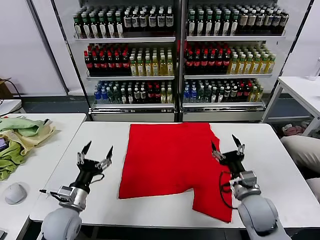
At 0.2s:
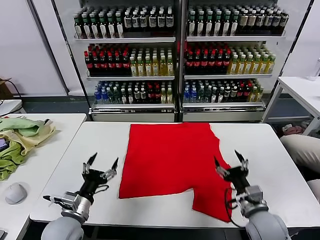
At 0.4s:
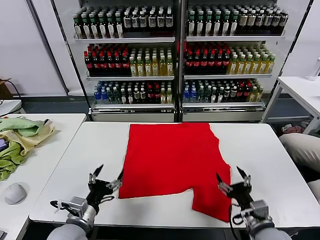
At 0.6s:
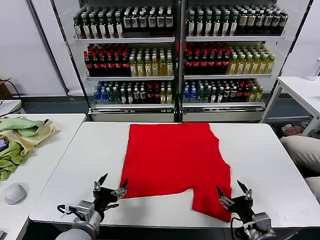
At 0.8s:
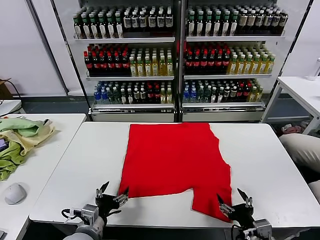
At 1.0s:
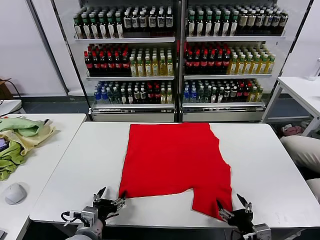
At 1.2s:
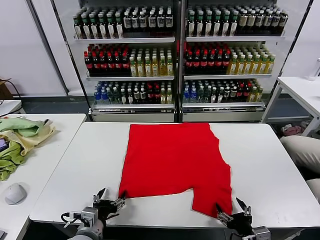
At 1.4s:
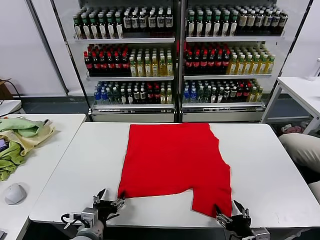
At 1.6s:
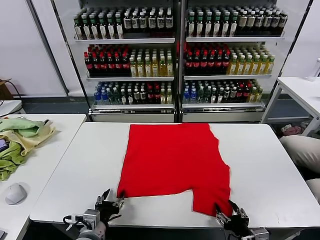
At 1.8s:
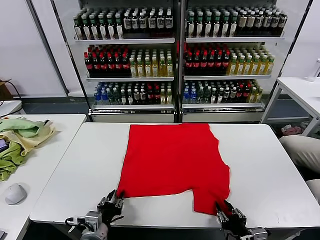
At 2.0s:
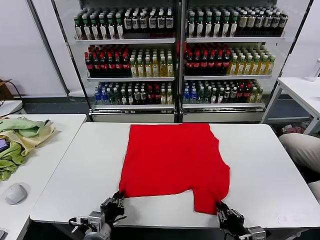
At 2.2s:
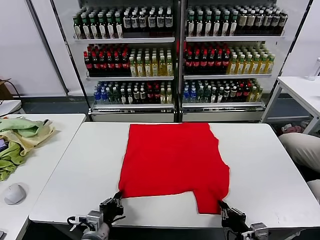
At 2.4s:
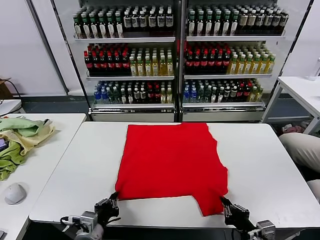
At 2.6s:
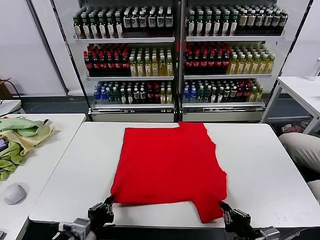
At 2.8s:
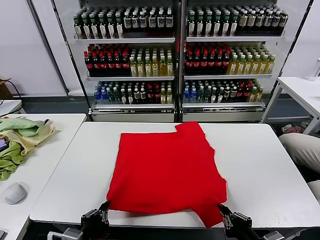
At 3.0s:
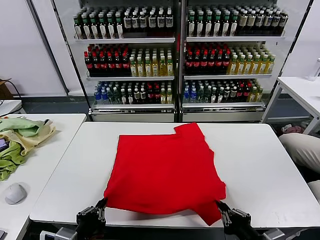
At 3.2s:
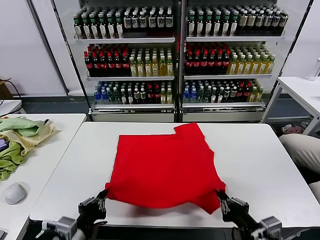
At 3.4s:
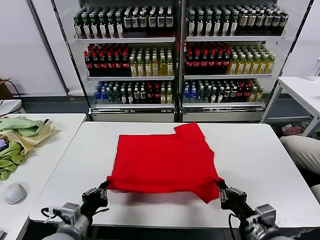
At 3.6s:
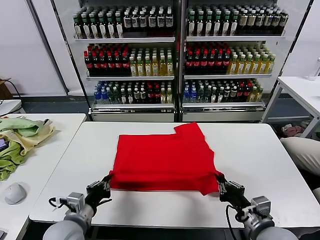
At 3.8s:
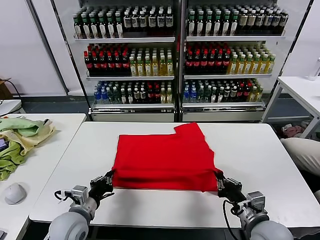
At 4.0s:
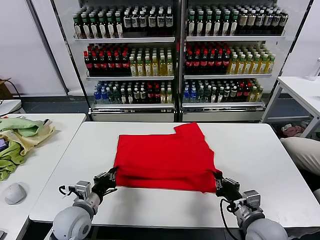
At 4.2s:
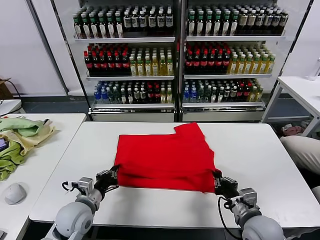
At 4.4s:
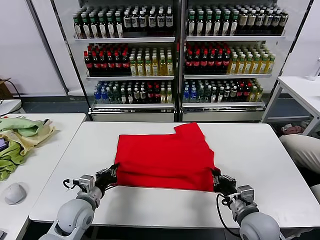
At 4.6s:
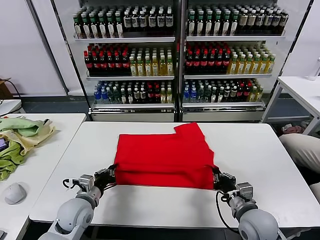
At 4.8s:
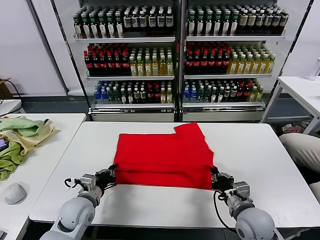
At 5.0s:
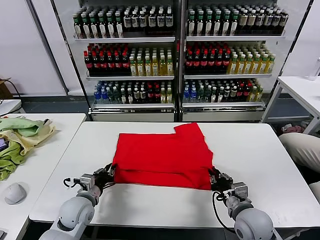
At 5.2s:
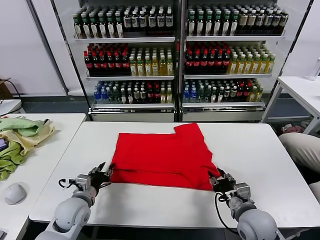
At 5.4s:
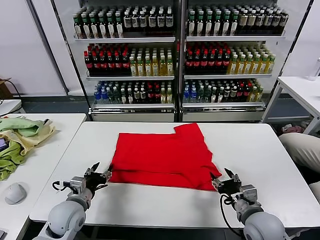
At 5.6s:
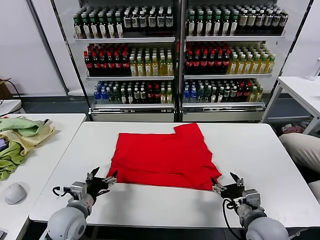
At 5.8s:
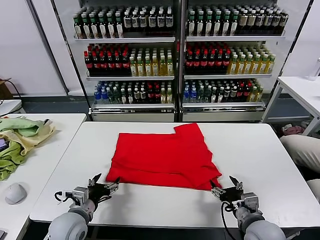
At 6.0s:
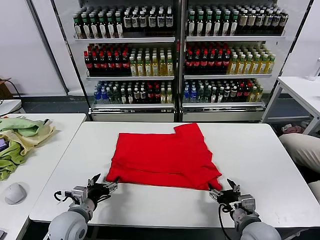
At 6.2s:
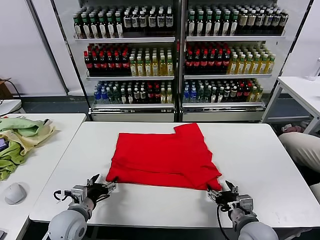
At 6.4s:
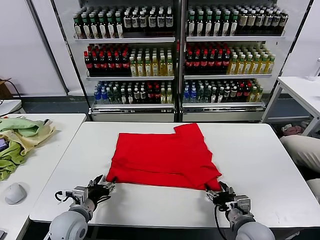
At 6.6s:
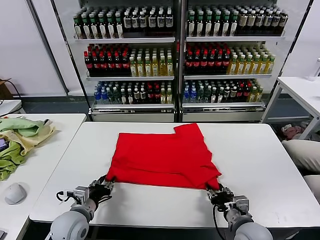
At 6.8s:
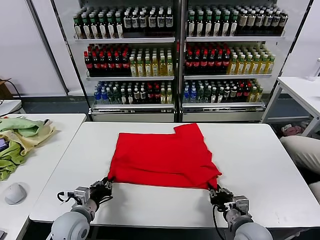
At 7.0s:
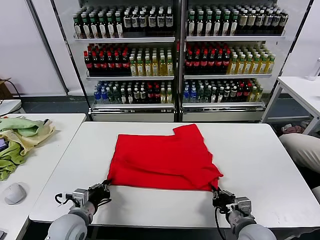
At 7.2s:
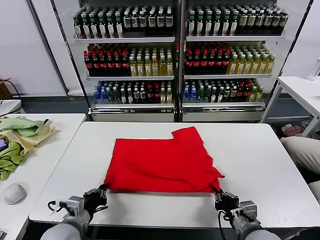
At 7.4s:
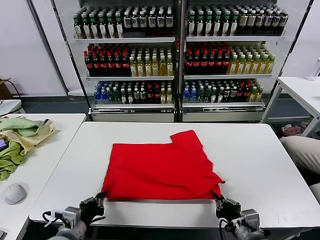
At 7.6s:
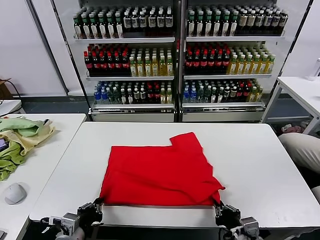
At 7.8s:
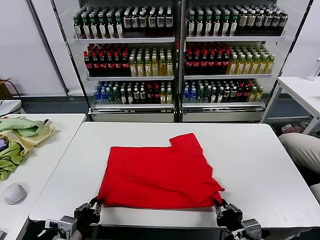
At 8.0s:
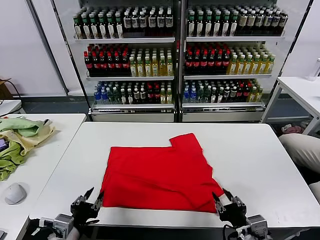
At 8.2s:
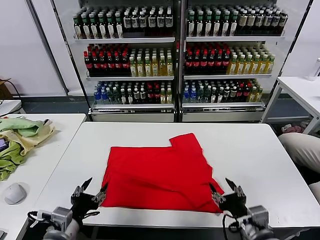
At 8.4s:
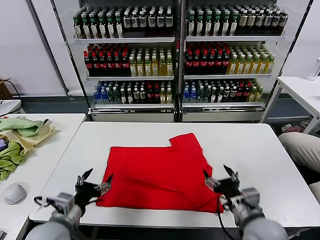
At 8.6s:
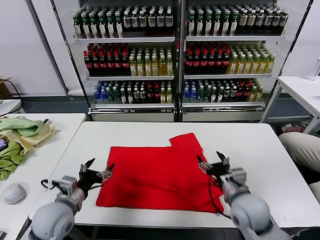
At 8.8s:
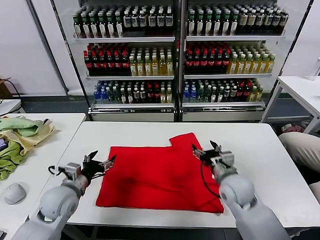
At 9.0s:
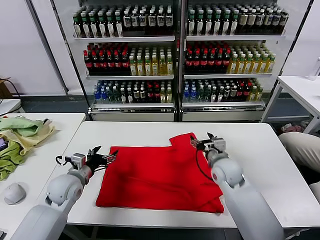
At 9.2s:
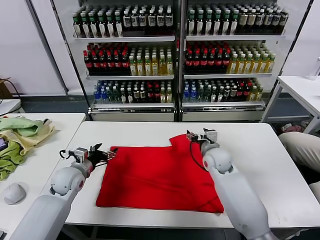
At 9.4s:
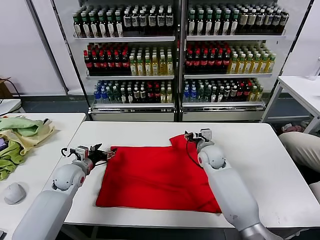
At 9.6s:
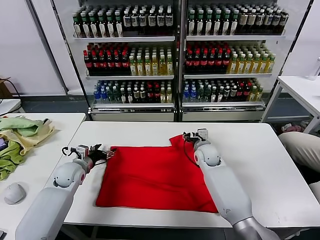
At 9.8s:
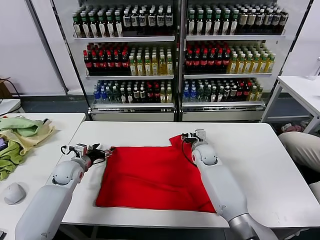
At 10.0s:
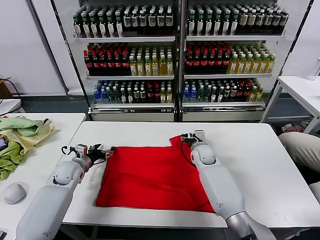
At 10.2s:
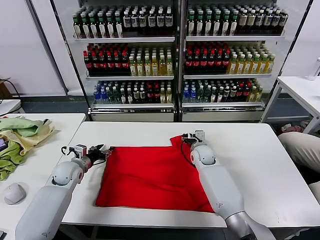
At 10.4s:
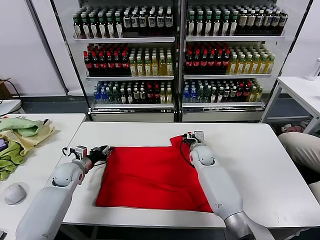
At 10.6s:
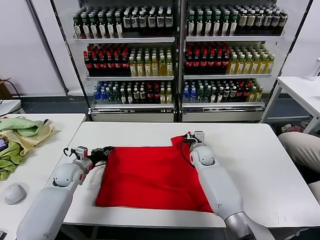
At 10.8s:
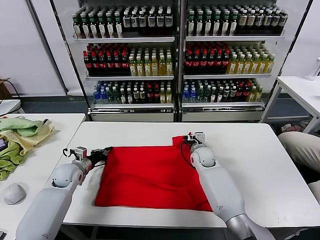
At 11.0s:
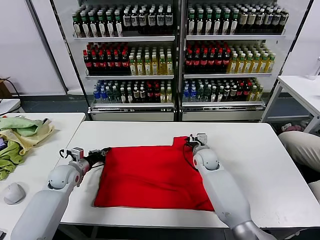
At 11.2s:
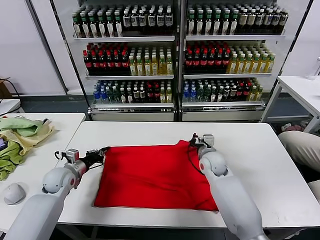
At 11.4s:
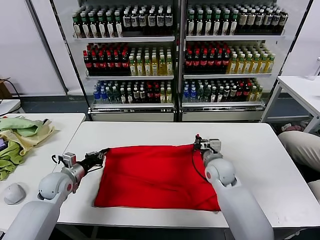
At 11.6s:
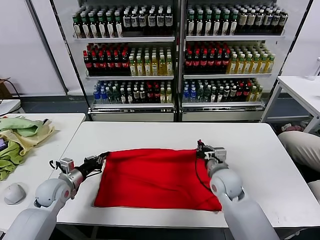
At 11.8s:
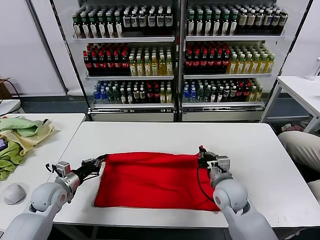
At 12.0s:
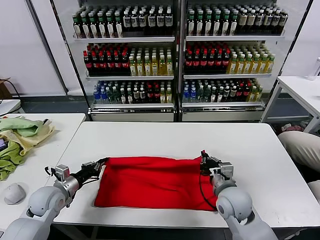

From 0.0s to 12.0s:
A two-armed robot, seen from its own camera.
Task of the whole recording: fold and organize the clothes.
Step, from 0.0s to 2.2s: use both grippers simultaneously to clamp the lower edge of the clothing fabric.
Step, from 2.4s to 5.2s: use both grippers to drag the lower edge of the fabric forward and fold it over the upper edge.
Step, from 5.4s to 7.8s: Drag the clothes downward with both gripper.
Step, from 8.2s to 10.8s: use both grippers simultaneously to clamp the upper edge of the clothing fabric.
From 1.6s to 3.0s: The left gripper moves upward and backward, some 10 cm, and closes its fingers. Meanwhile the right gripper shifts roughly 10 cm upward, and closes up.
From 3.0s to 4.4s: The two grippers go some 15 cm forward and downward.
From 4.4s to 6.0s: The left gripper opens up; the right gripper opens up.
From 6.0s to 7.6s: The grippers both shift backward by some 10 cm. The left gripper closes up; the right gripper closes its fingers.
From 7.6s to 9.0s: Both grippers move forward, some 25 cm. The left gripper opens. Meanwhile the right gripper opens its fingers.
From 9.0s to 10.4s: The left gripper is displaced forward by about 10 cm, and closes; the right gripper is displaced forward and downward by roughly 10 cm, and closes up.
From 10.4s to 12.0s: The right gripper shifts approximately 20 cm backward, and closes its fingers. Meanwhile the left gripper goes about 10 cm backward, and closes.

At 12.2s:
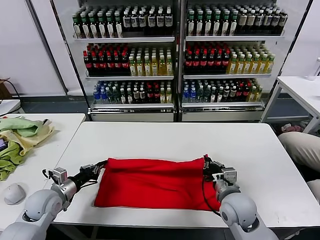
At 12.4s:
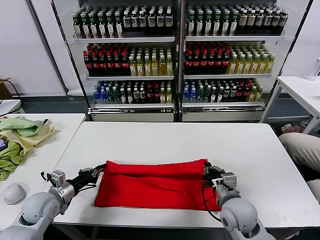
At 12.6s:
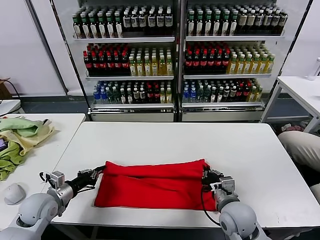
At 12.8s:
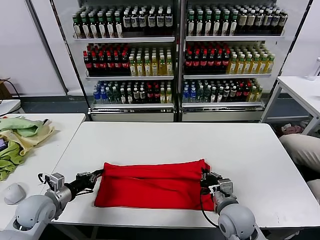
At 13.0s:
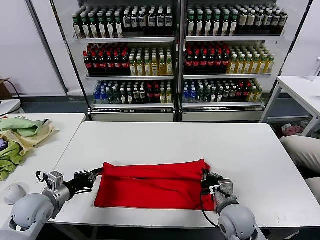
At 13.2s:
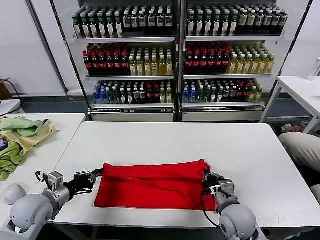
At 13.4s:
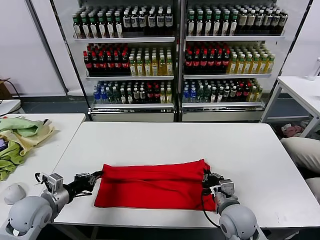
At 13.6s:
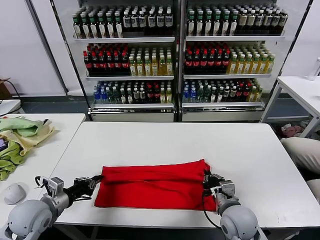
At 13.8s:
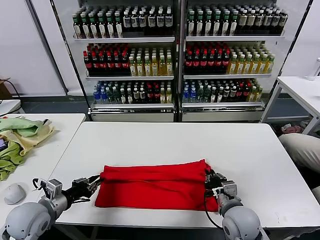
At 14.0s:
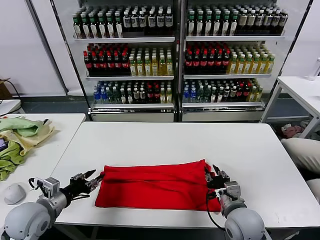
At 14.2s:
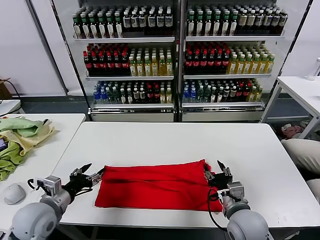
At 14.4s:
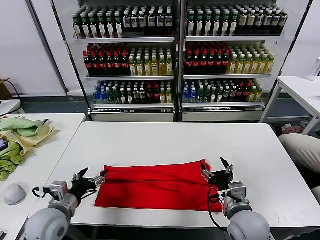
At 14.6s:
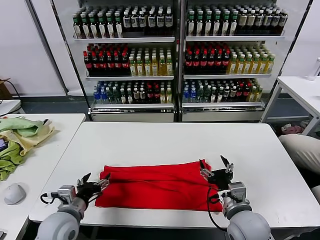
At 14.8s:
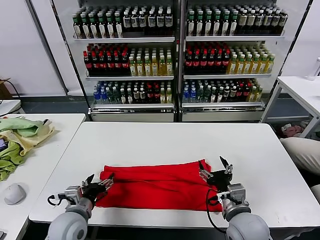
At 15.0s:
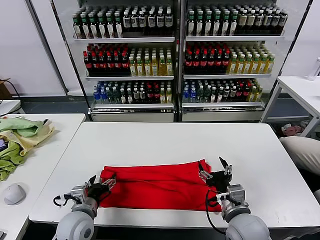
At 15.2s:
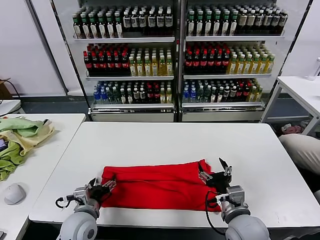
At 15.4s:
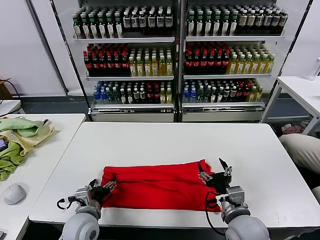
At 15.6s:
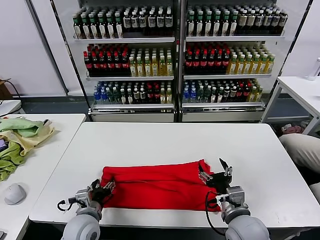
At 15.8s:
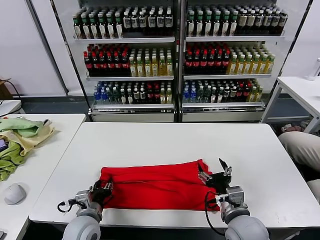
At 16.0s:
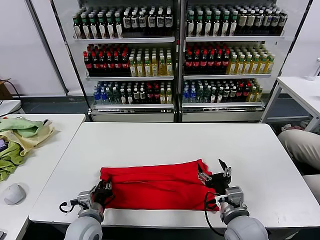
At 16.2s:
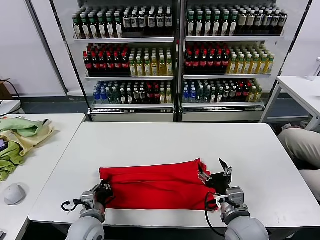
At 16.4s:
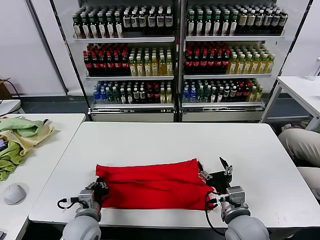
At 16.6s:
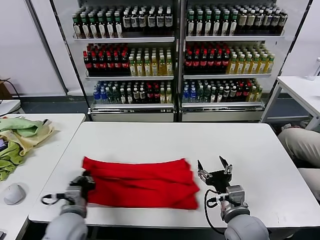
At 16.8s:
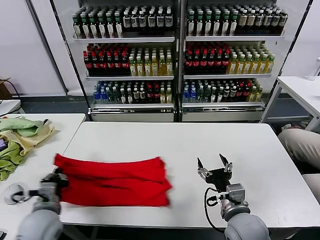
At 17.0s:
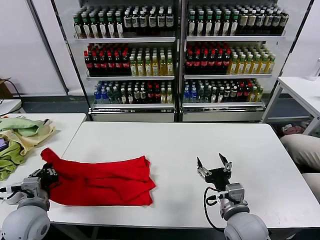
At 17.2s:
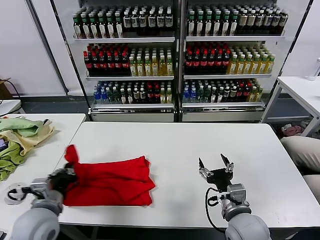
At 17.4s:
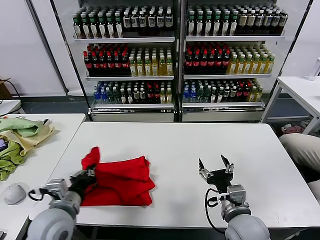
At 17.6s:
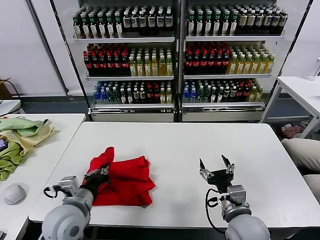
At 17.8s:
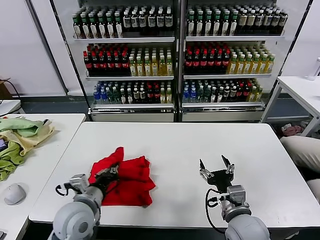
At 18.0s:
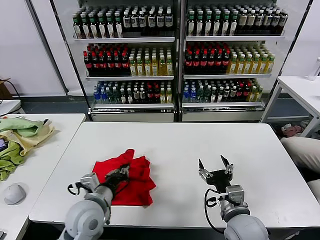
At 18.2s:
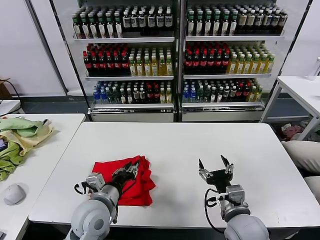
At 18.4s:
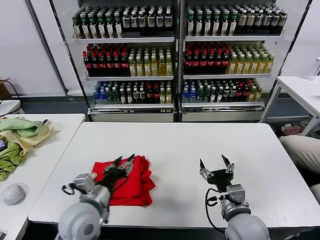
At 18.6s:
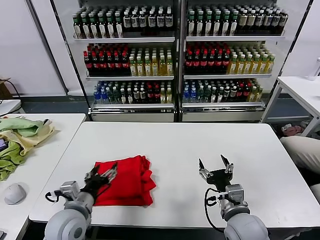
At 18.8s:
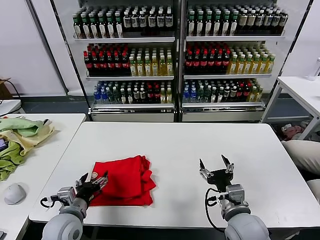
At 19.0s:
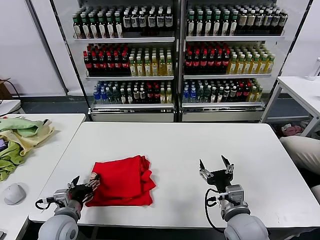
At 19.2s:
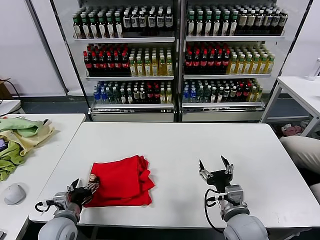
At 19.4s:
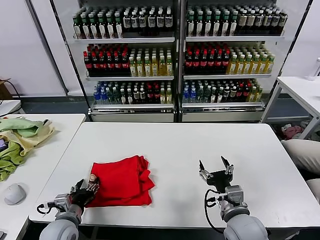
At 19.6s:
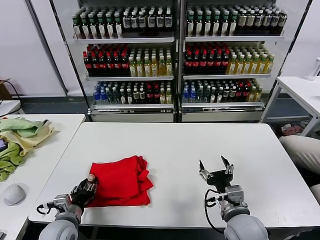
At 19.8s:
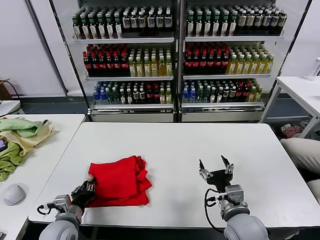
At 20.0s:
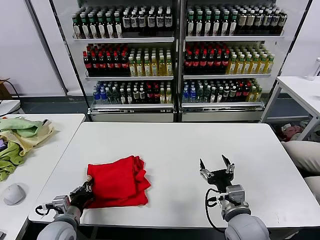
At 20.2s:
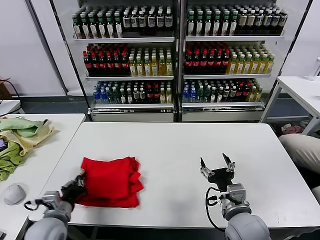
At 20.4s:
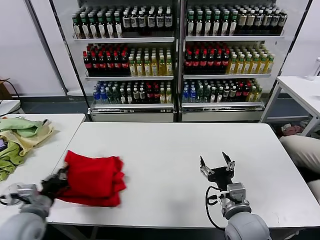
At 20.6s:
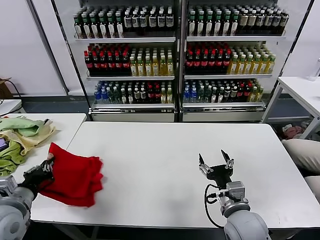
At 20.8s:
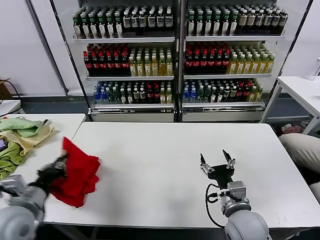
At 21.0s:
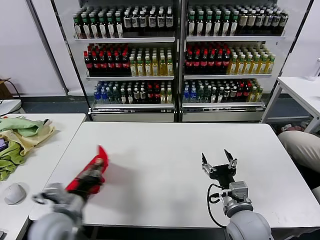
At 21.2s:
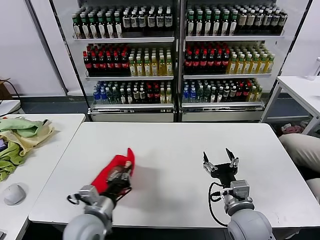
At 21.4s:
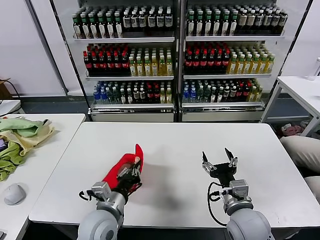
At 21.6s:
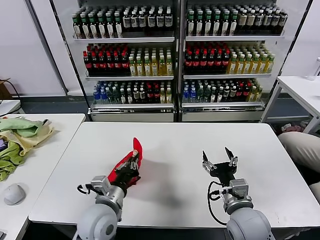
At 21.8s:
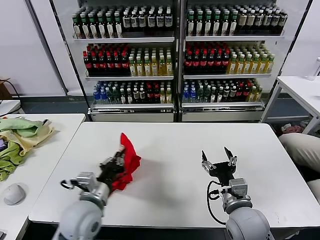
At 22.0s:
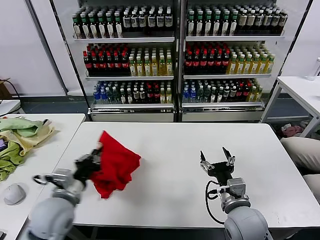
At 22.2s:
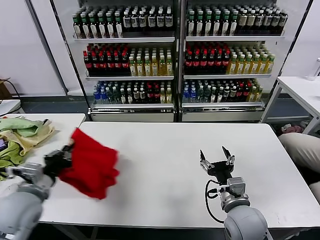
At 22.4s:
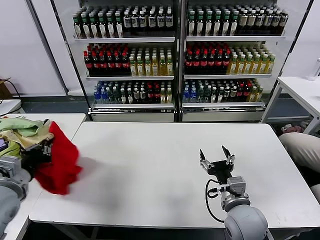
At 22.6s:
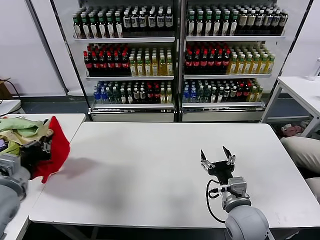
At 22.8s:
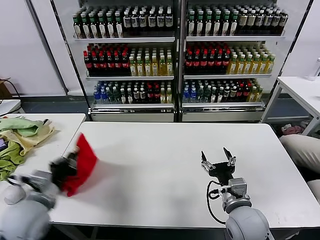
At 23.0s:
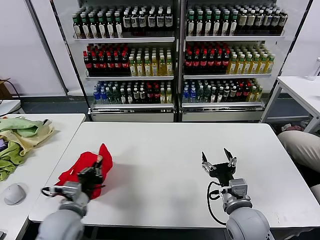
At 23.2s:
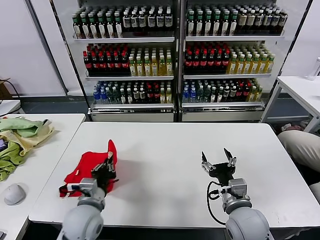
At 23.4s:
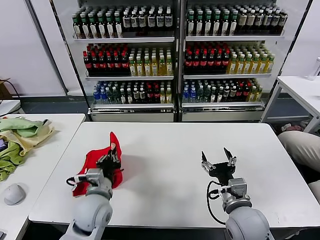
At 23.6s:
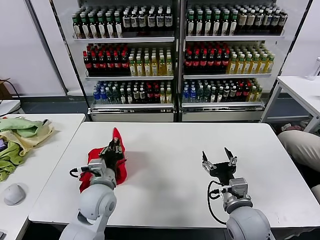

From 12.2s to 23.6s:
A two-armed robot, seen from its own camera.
Task of the whole recording: fold and organize the clothes.
Step, from 12.2s to 14.0s: use both grippers to drag the upper edge of the fabric backward and fold it over the lower edge.
Step, from 14.2s to 16.2s: use the left gripper to clamp the left edge of the fabric.
Step, from 16.4s to 18.2s: use the left gripper to drag the left edge of the fabric to the left and folds it over the right edge.
From 12.2s to 13.6s: The left gripper goes about 5 cm backward.
From 13.6s to 15.0s: The left gripper travels to the right by roughly 10 cm, and opens its fingers. Meanwhile the right gripper moves roughly 5 cm, and opens.
From 15.0s to 16.4s: The left gripper closes.
From 16.4s to 17.8s: The left gripper travels upward by roughly 10 cm, and goes to the left and returns, some 10 cm each way.
From 17.8s to 19.4s: The left gripper shifts some 10 cm downward and to the left, and opens its fingers.
From 19.4s to 20.8s: The left gripper shifts approximately 15 cm upward and to the left, and closes its fingers.
From 20.8s to 22.2s: The left gripper travels to the right and back again, roughly 20 cm each way.
From 22.2s to 23.6s: The left gripper is displaced to the right by some 15 cm.
